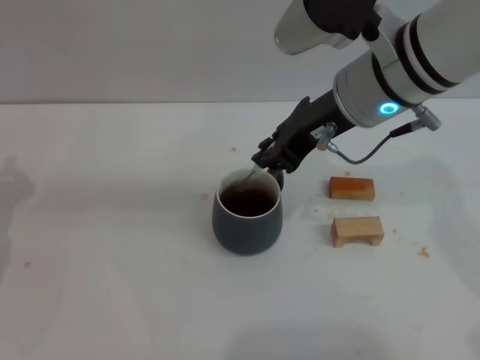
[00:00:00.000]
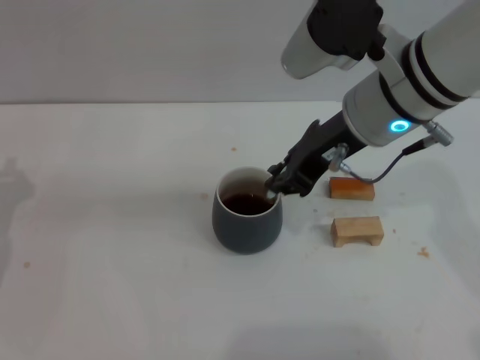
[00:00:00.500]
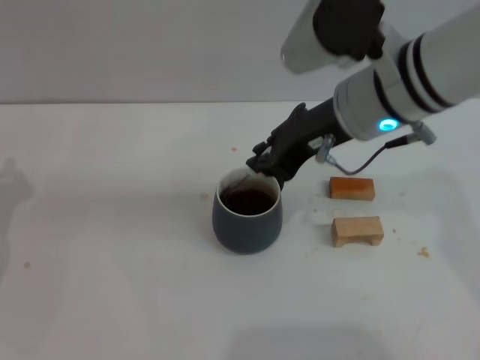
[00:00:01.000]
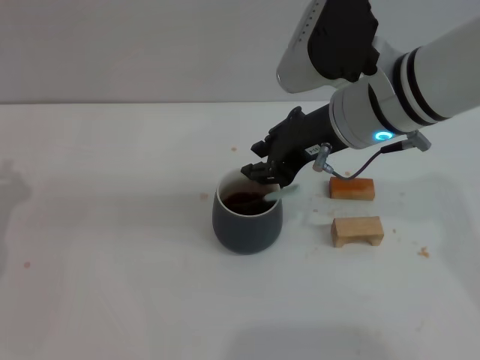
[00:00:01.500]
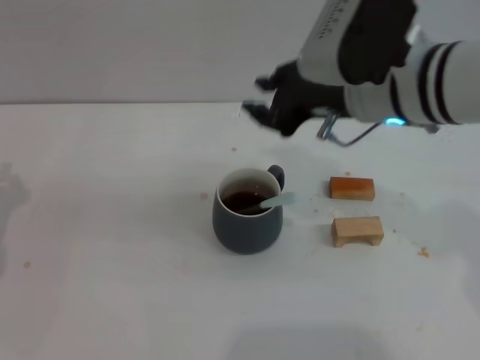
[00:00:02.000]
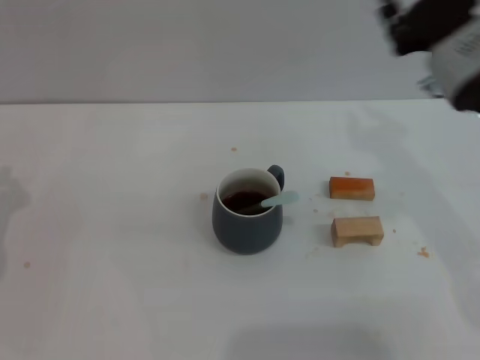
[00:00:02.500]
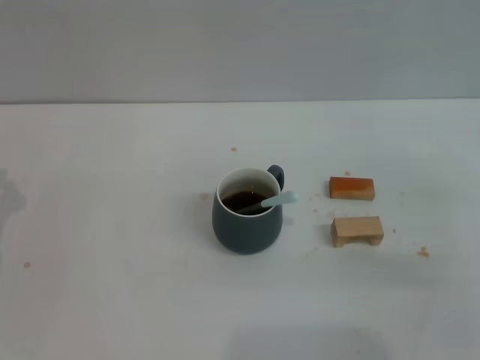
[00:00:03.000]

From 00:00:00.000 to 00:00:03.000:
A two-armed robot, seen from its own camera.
Task of the whole recording: Move the grey cup to the center, lift the blue spoon, stir it three times in the cup, and put the spoon into the cup.
From 00:00:00.000 to 00:00:01.500: The grippers stay close to where they were, moving slightly.
From 00:00:01.500 to 00:00:03.000: The right gripper travels to the right, backward and downward by about 25 cm.
